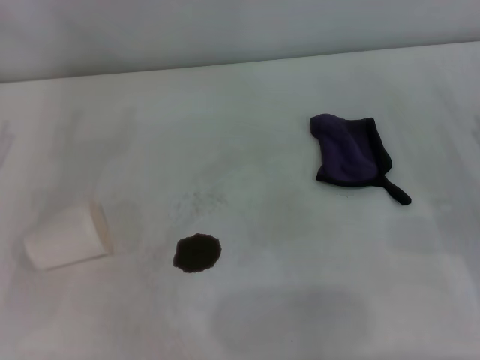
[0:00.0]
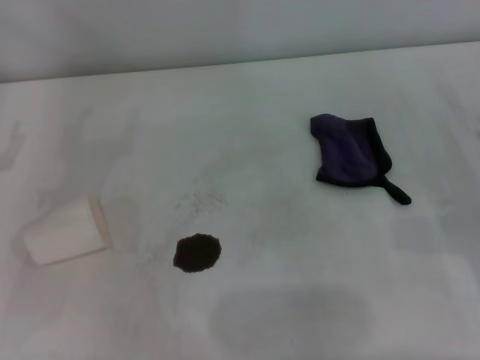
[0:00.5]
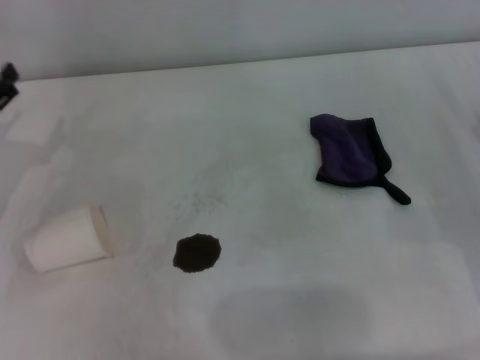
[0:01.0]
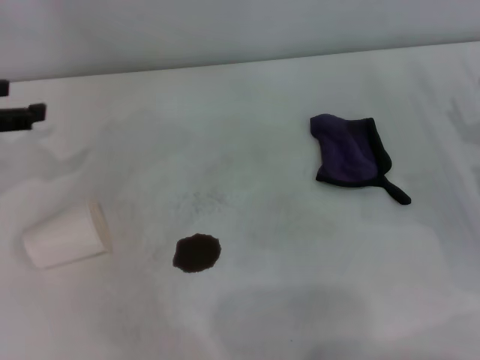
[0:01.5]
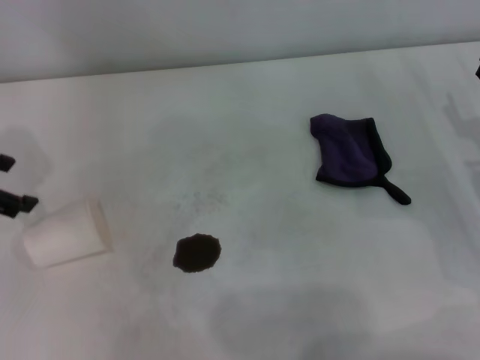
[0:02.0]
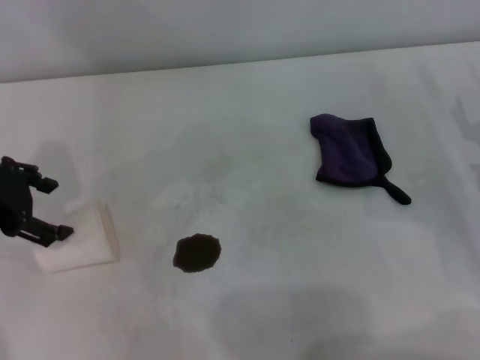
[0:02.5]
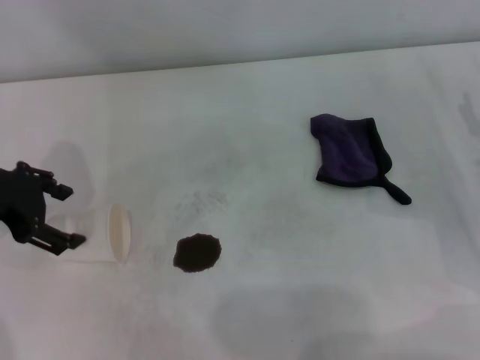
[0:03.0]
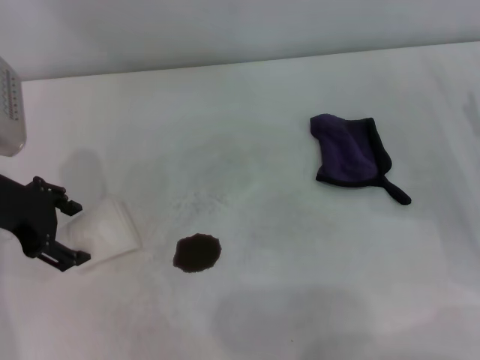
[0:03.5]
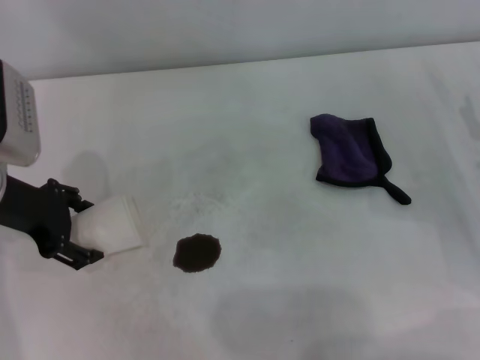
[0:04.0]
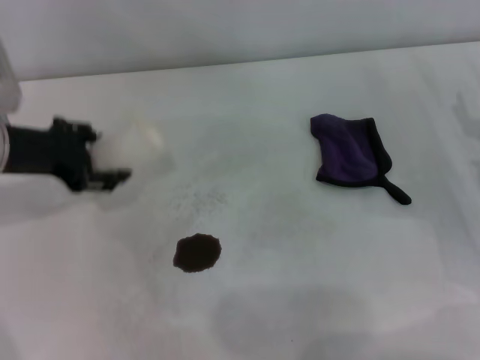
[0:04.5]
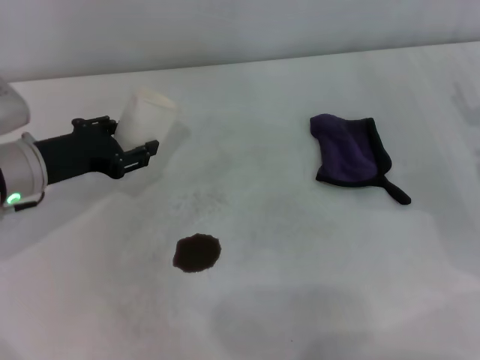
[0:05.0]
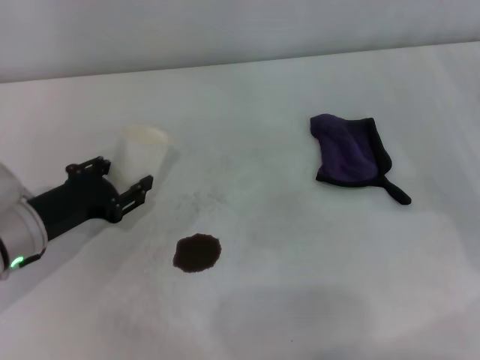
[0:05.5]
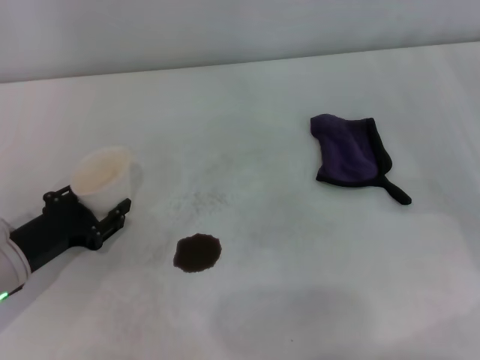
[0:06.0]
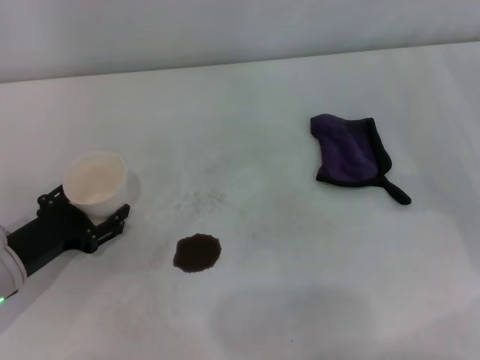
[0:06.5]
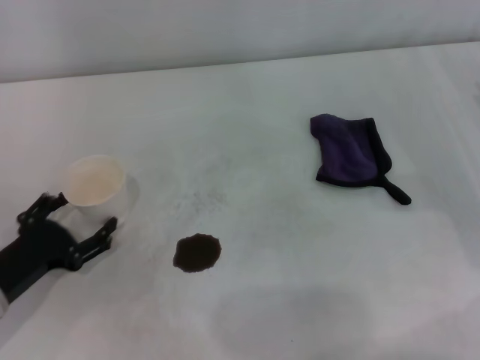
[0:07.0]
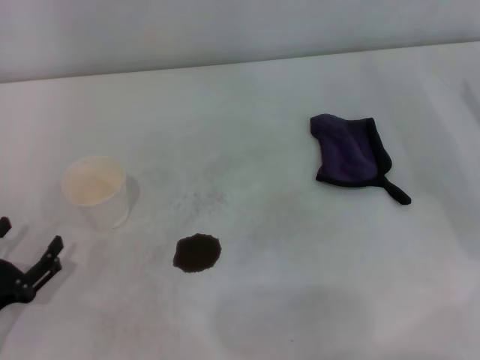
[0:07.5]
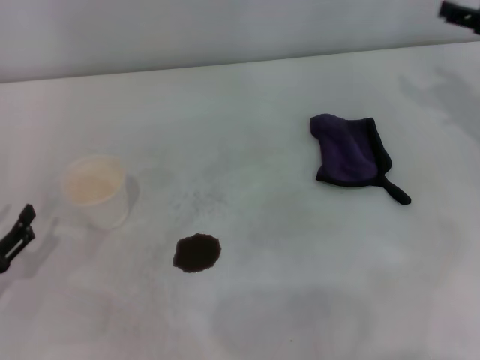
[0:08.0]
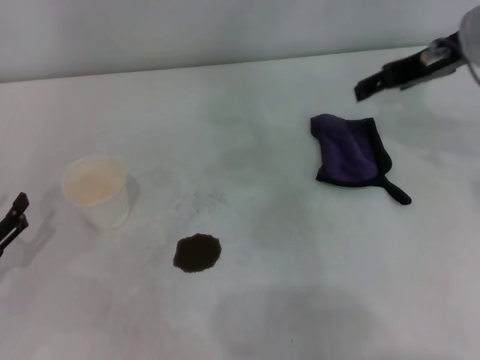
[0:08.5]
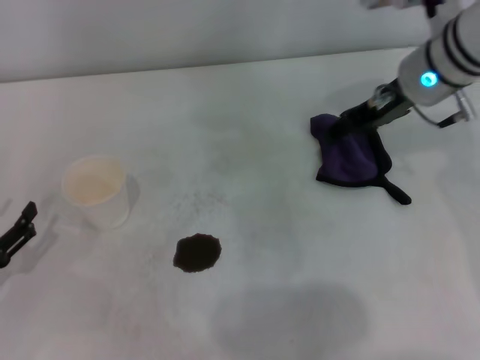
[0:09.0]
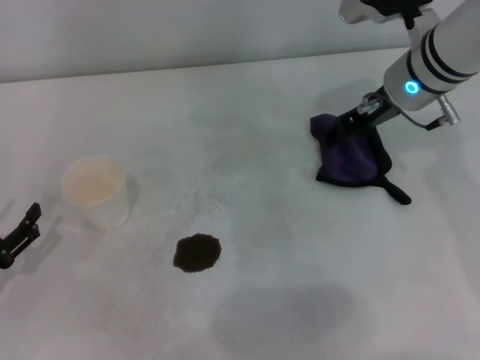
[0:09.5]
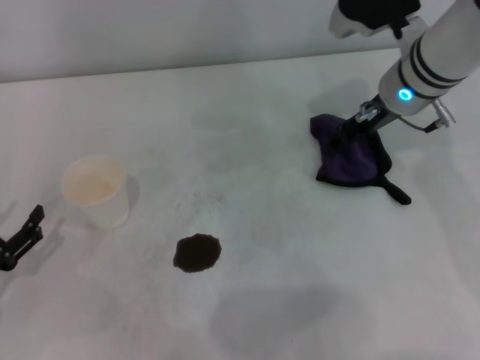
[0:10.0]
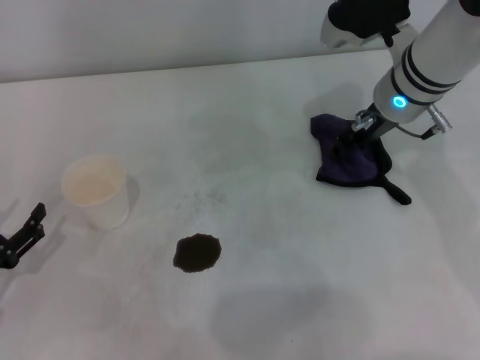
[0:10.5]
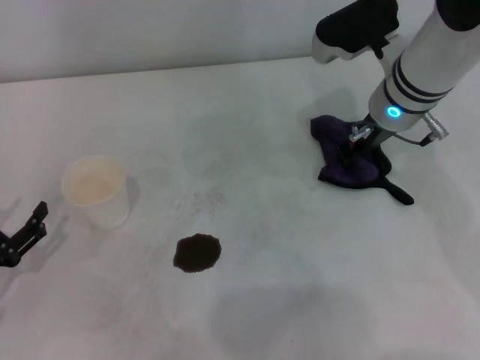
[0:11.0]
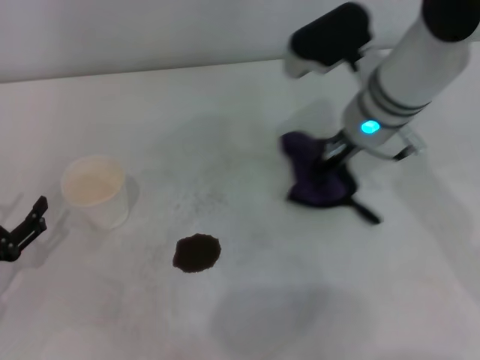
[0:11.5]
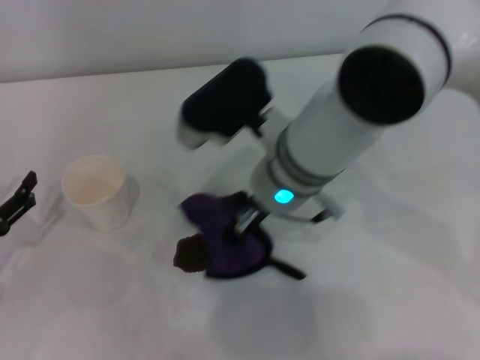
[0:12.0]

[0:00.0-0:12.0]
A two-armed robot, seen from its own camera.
Step, 0:00.0 to 0:04.0: Grasp the paper cup with the left gripper.
Step, 0:04.5 to 0:06.5: Stand the paper cup upright with the left gripper.
Step, 0:07.5 to 0:11.0: Grasp the rag with the right gripper.
0:00.0 to 0:02.0: The left gripper travels upward and forward by roughly 10 cm.
0:02.0 to 0:04.0: The left gripper shifts roughly 10 cm to the right and downward.
0:04.0 to 0:06.0: The left gripper moves downward and backward, approximately 15 cm, and closes.
0:06.0 to 0:08.0: The left gripper heads backward and to the left, covering approximately 10 cm, and opens, while the right gripper heads upward, forward and to the left, covering some 15 cm.
0:08.0 to 0:10.0: The right gripper travels to the left by some 15 cm.
0:10.0 to 0:12.0: The right gripper heads to the left and backward, covering some 15 cm, and closes.

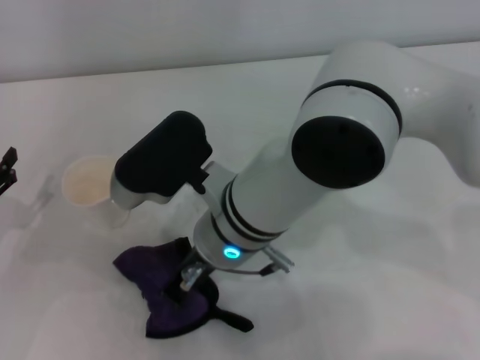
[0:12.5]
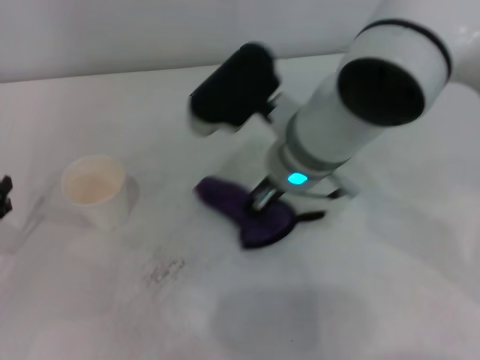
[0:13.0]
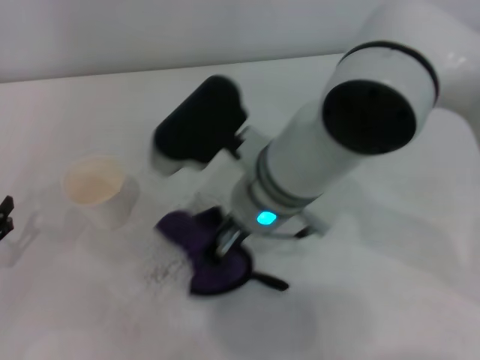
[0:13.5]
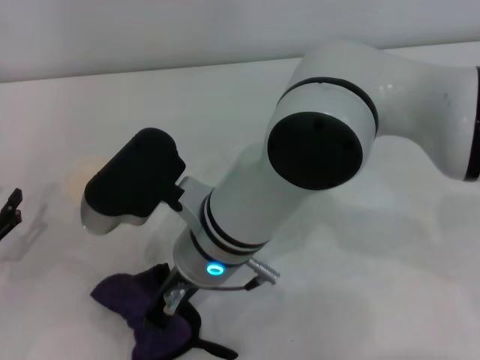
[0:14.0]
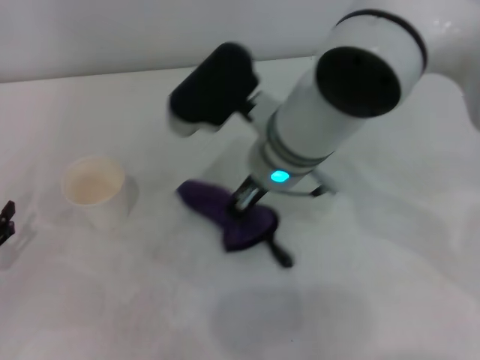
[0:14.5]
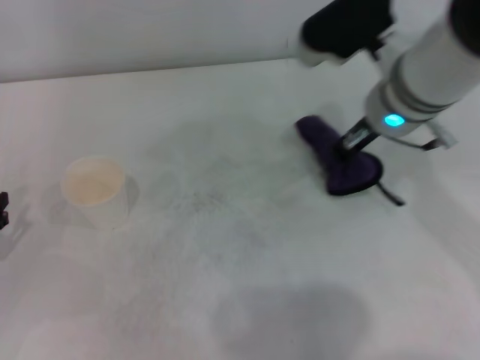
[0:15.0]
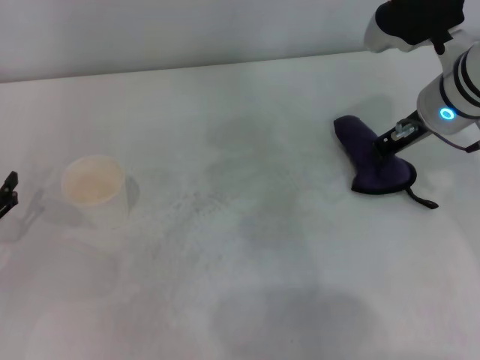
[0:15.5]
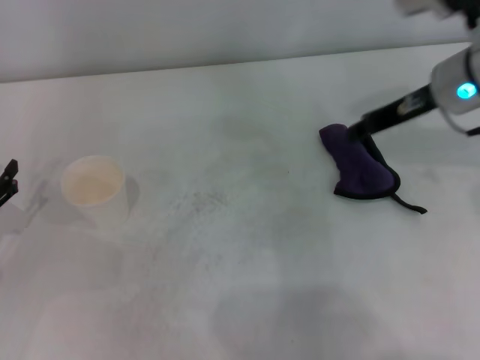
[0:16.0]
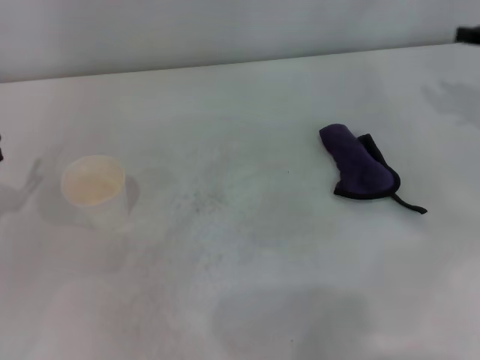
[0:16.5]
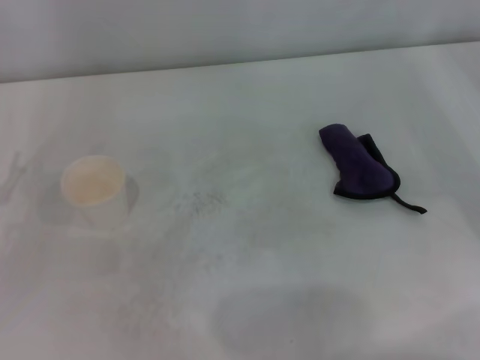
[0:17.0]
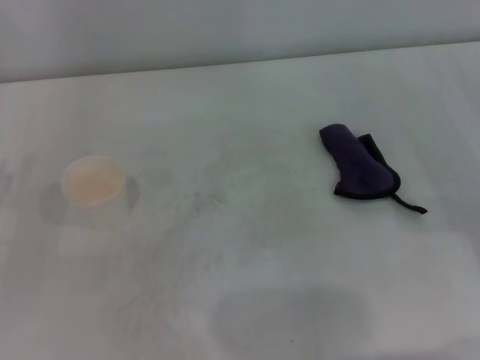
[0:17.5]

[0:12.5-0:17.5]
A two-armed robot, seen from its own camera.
Step, 0:12.5 to 0:14.5: Wipe the stains off the table with the right gripper.
Step, 0:15.0 to 0:15.5: Place the rag on the table with the right gripper.
0:12.5 to 0:15.0: The right gripper moves left and right over approximately 20 cm, changing direction 2 times.
0:15.0 to 0:17.5: The right gripper moves to the right, downward and backward, approximately 25 cm, and opens its fingers.

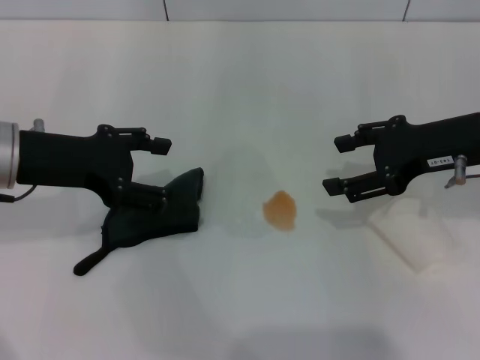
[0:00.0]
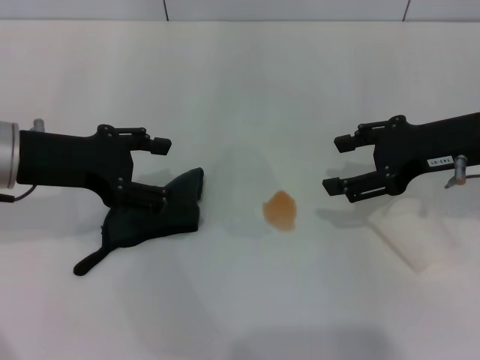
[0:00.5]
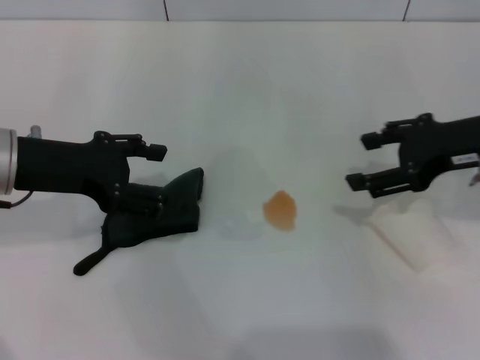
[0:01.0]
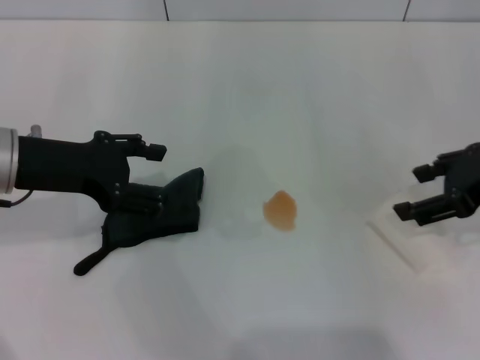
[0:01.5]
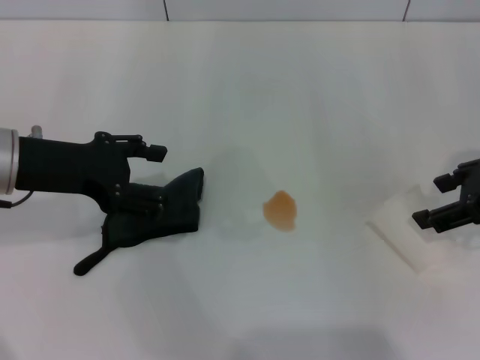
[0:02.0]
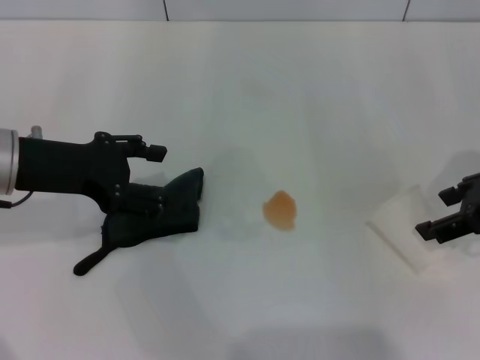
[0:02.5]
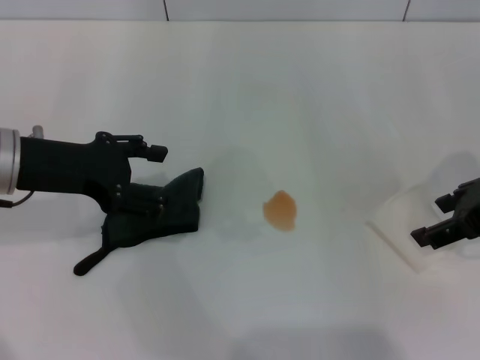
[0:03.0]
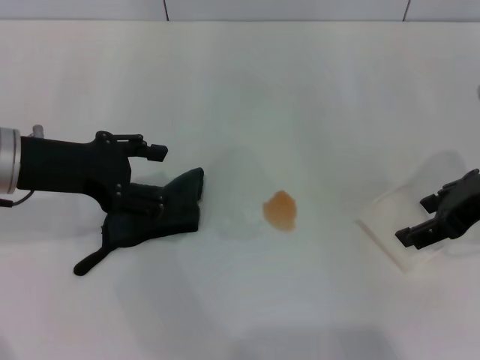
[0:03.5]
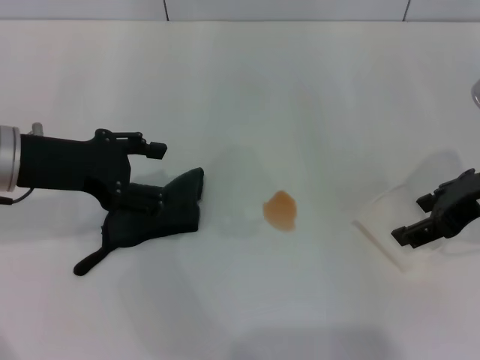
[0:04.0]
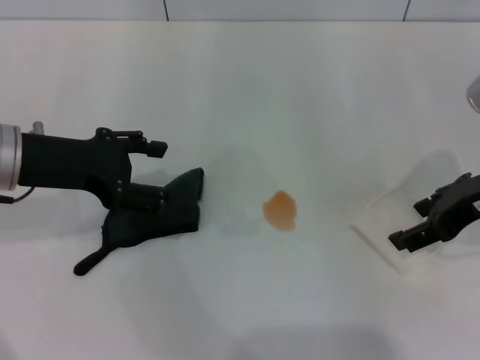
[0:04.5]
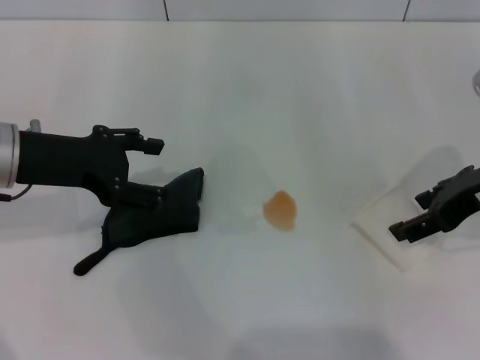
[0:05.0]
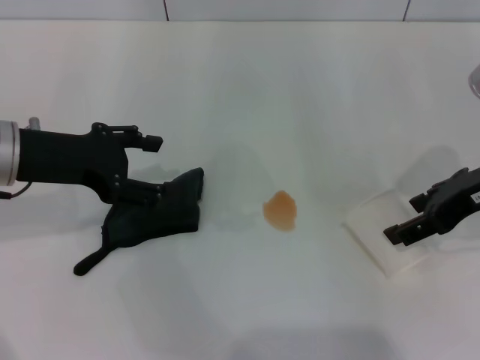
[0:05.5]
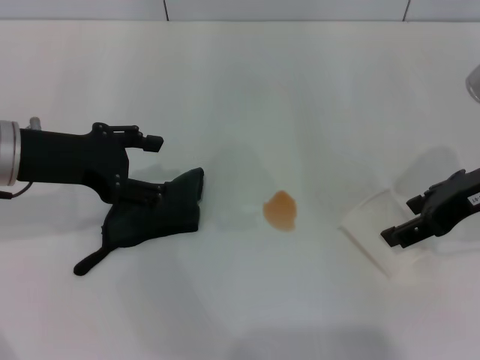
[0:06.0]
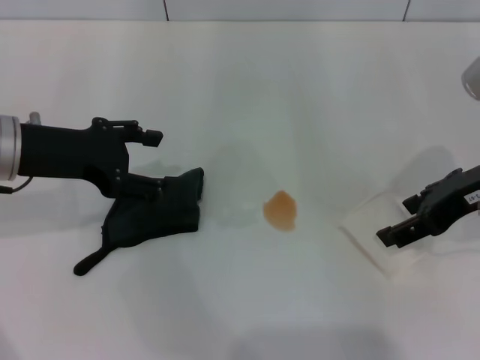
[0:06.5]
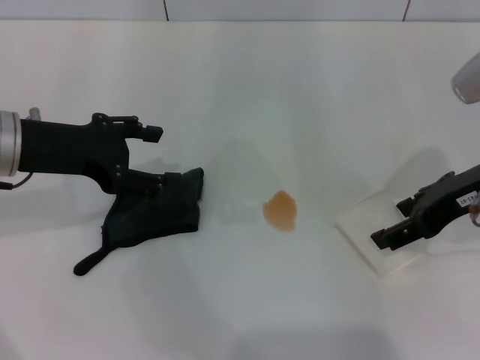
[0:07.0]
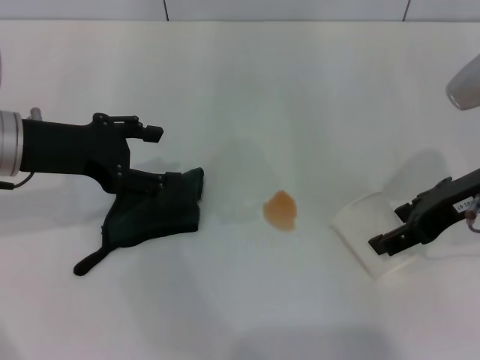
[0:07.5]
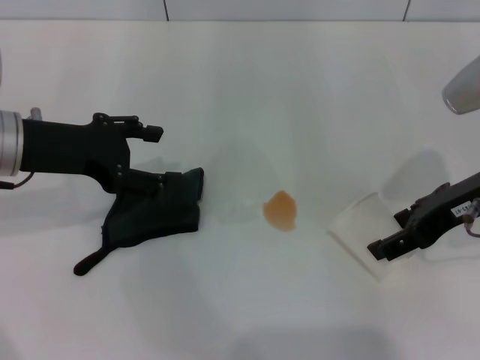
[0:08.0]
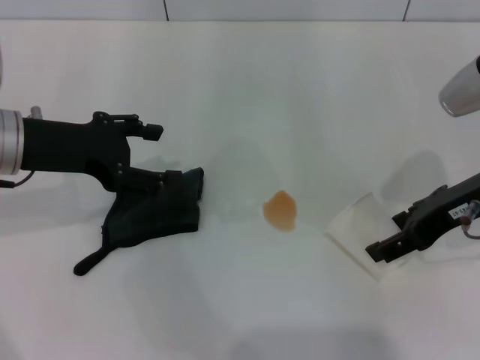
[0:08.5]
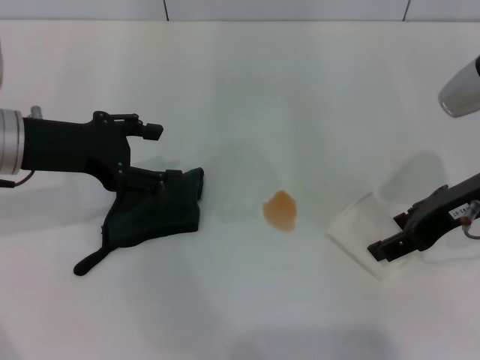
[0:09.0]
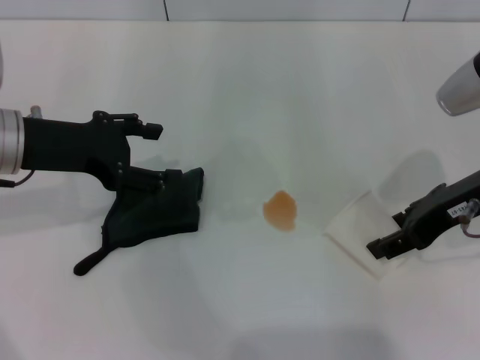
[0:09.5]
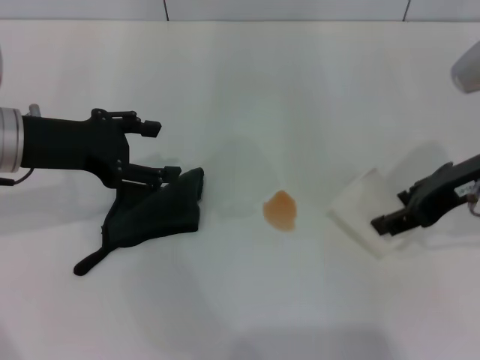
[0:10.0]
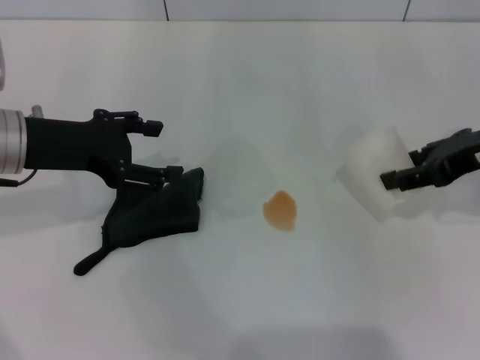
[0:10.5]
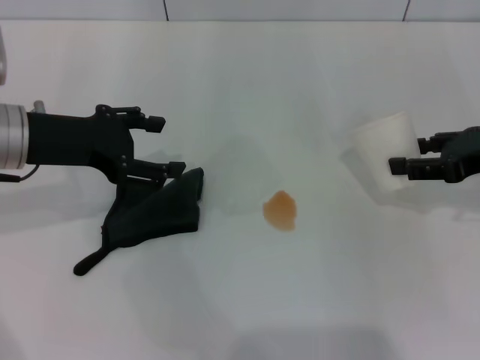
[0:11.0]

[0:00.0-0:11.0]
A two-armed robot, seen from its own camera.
Step, 0:00.0 to 0:09.5: Grasp the paper cup with the right gripper.
0:00.0 to 0:02.0: The right gripper changes place by approximately 5 cm.
0:02.0 to 0:03.5: There are only small adjustments of the grippers.
0:03.5 to 0:05.5: Neither gripper changes place.
0:05.5 to 0:07.5: The grippers stay close to where they were, moving slightly.
0:07.5 to 0:09.0: The two grippers keep their place.
0:09.0 to 0:11.0: The right gripper shifts roughly 10 cm to the right, and closes its fingers.
